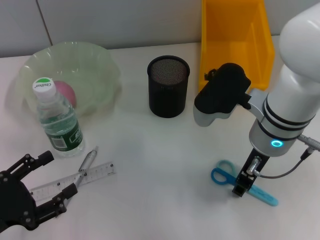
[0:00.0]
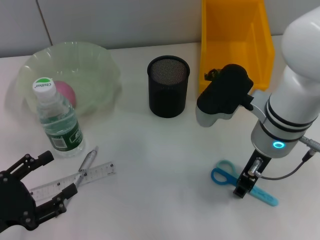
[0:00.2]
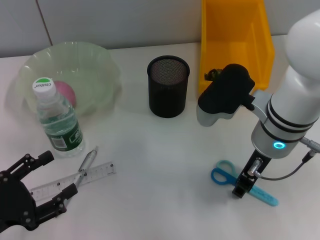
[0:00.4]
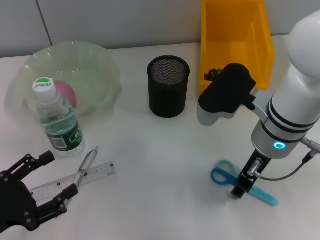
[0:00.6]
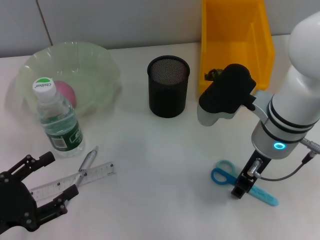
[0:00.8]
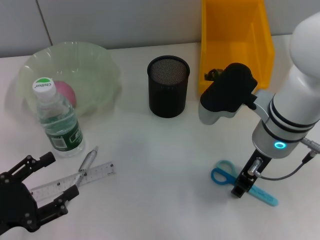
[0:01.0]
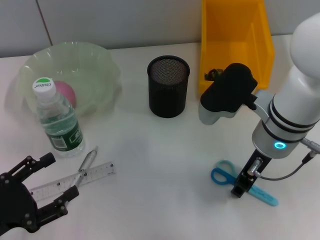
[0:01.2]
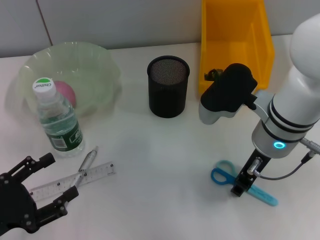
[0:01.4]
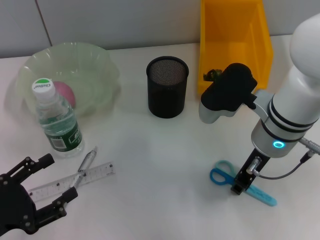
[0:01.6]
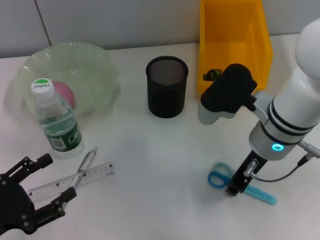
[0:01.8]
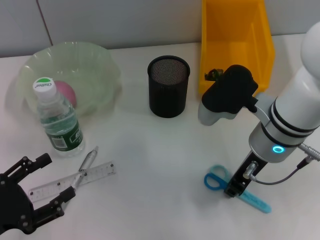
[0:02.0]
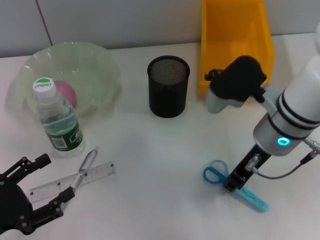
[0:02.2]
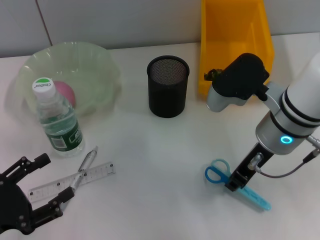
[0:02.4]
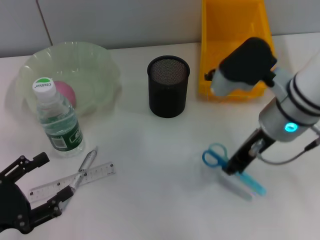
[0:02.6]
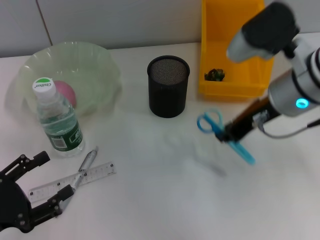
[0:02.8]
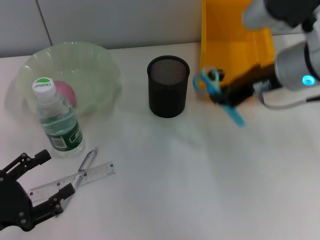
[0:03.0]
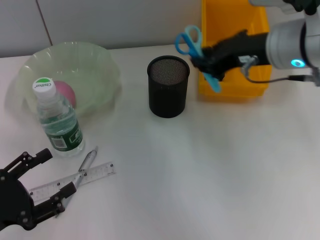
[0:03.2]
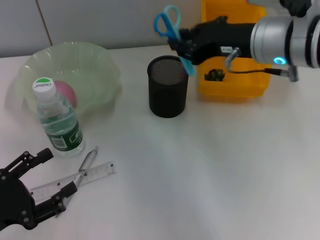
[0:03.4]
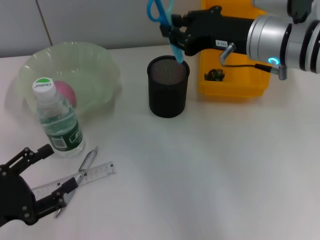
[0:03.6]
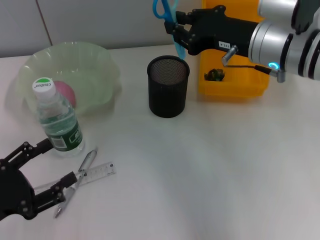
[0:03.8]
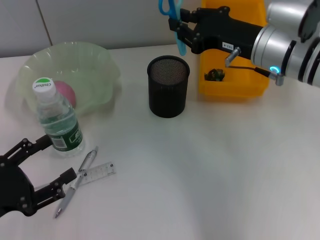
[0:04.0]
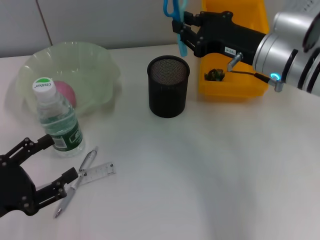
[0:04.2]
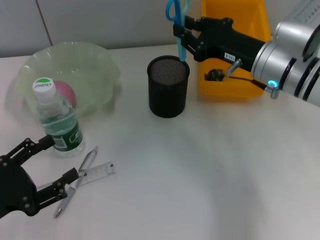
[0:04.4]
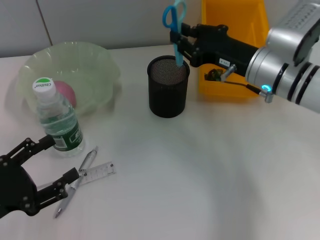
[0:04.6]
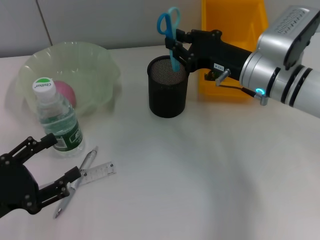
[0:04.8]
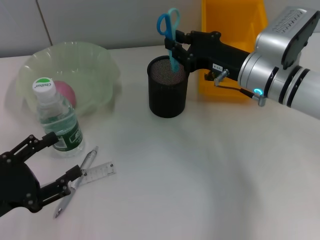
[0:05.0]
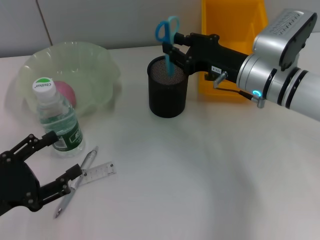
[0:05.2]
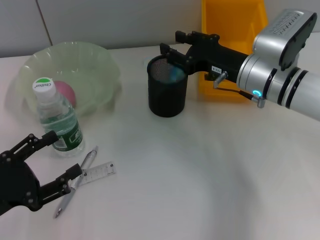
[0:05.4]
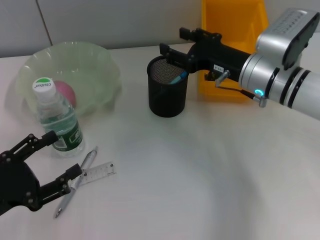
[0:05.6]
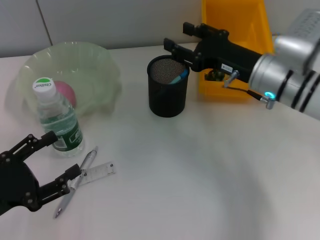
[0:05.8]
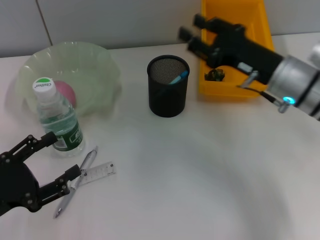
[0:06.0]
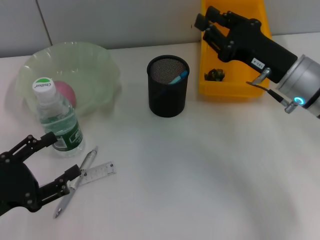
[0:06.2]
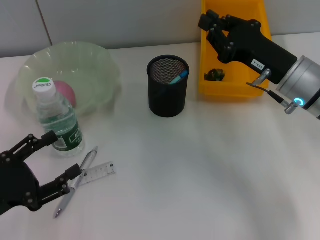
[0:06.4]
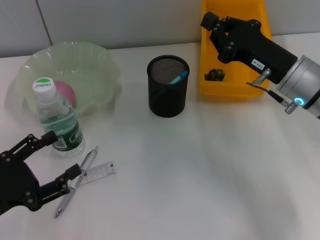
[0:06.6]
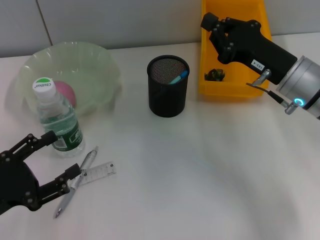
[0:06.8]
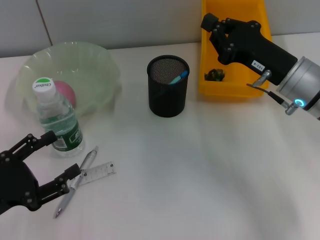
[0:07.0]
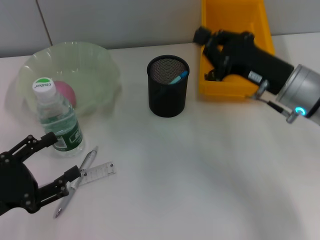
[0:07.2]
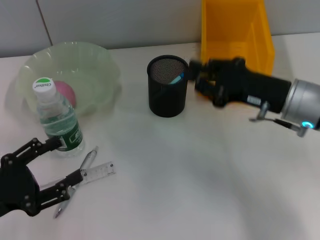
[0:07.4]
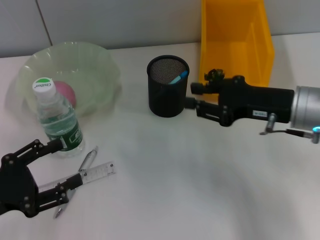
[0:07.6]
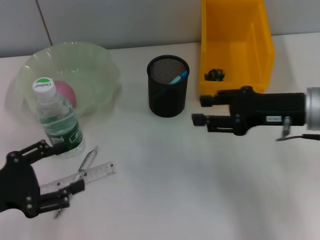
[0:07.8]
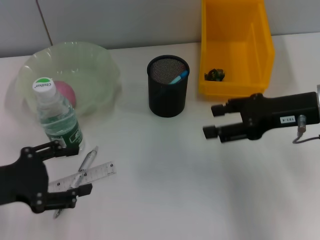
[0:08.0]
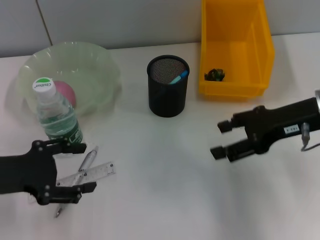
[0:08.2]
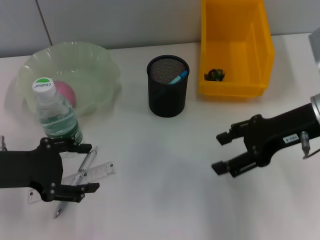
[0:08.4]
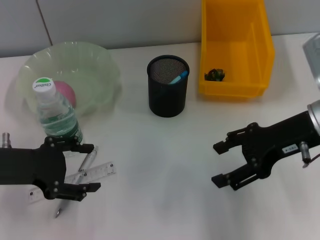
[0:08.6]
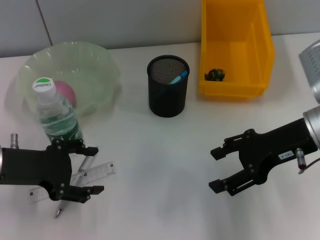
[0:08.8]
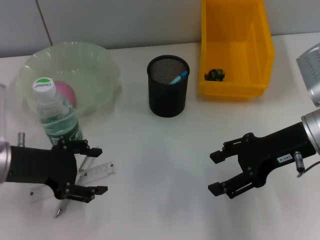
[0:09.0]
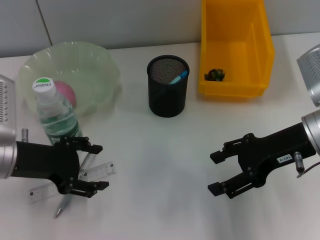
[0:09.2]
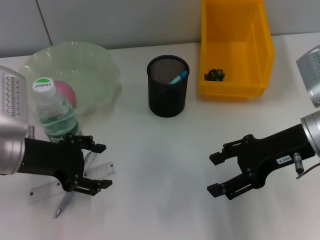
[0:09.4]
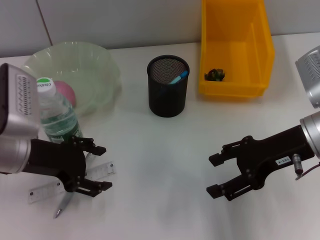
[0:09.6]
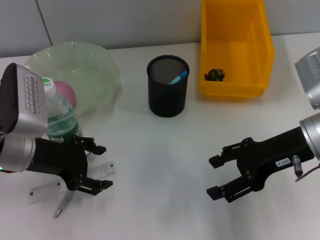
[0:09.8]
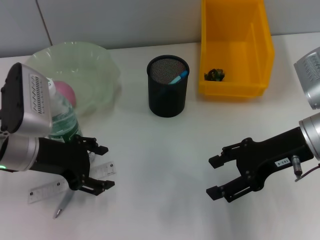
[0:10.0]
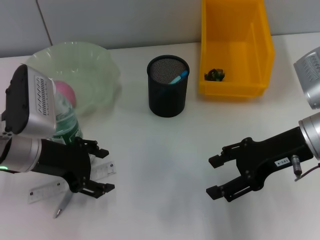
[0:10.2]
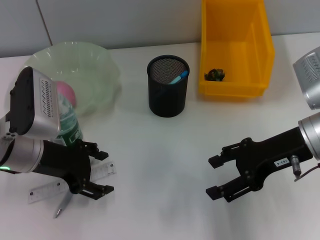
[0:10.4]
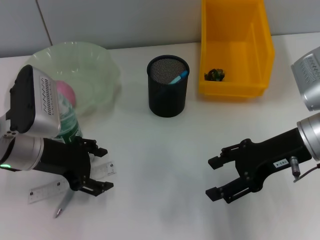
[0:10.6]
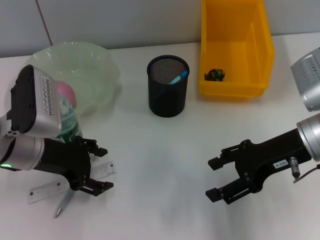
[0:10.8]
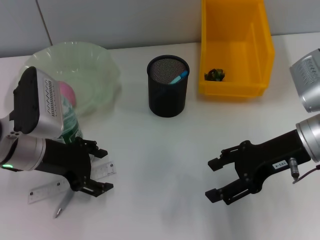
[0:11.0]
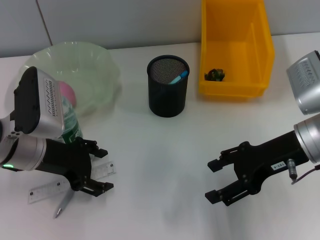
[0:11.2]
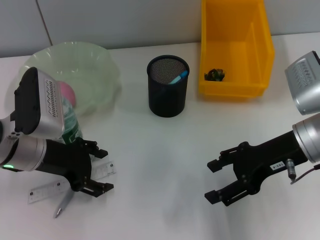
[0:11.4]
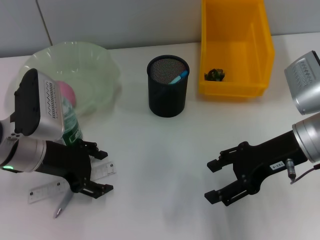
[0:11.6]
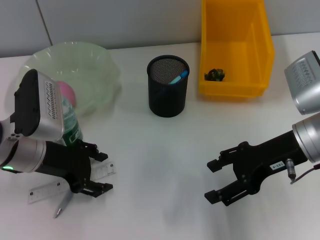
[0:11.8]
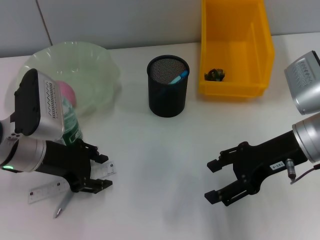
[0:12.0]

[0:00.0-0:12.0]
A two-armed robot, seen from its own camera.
Step, 0:02.0 to 0:05.6: Place the blue utility knife into the pen holder with the right hand.
0:00.0 to 0:01.6: Neither gripper changes place.
0:01.6 to 0:03.0: The right gripper is displaced upward by approximately 10 cm.
0:03.0 to 0:04.4: The right gripper is displaced downward by roughly 10 cm.
0:04.4 to 0:06.0: The right gripper opens up.
0:06.0 to 0:07.6: The right gripper closes up.
0:07.6 to 0:09.0: The right gripper opens, while the left gripper is displaced forward and to the right by about 10 cm.
0:09.0 to 0:10.4: The grippers move only a little.
0:10.4 to 0:12.0: Both grippers stay about where they are.

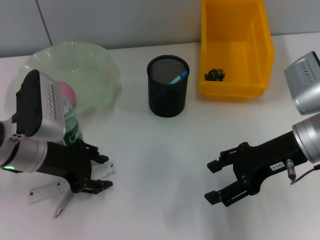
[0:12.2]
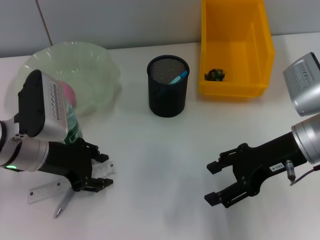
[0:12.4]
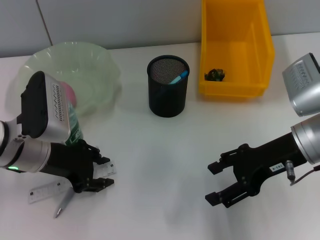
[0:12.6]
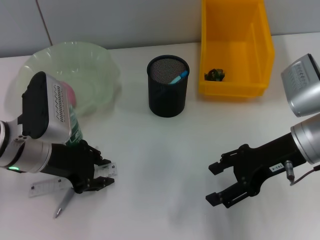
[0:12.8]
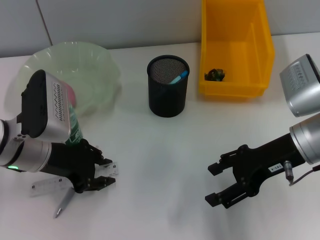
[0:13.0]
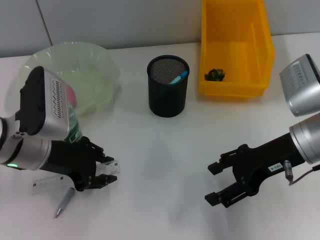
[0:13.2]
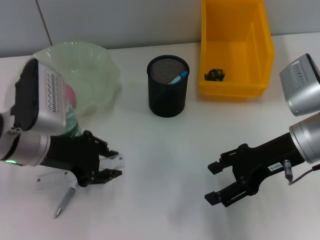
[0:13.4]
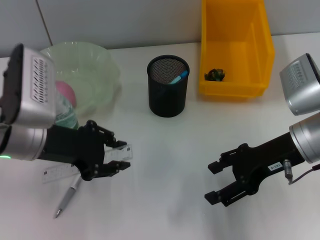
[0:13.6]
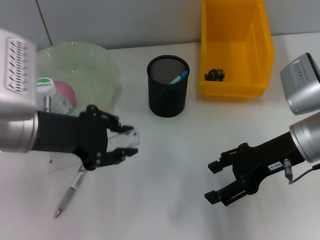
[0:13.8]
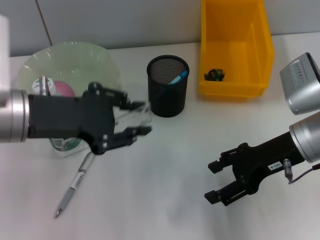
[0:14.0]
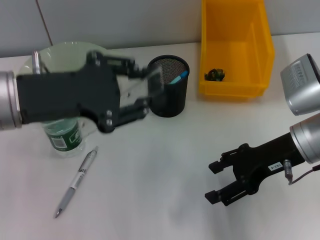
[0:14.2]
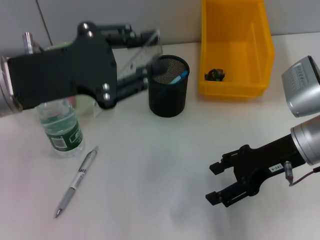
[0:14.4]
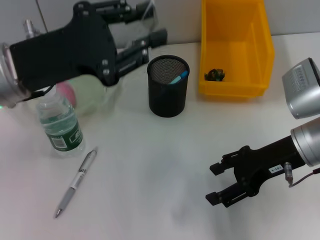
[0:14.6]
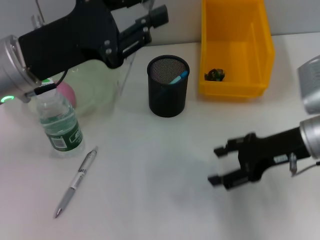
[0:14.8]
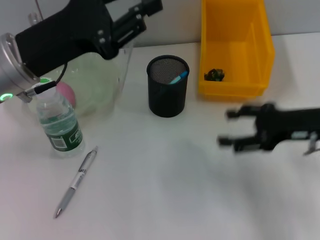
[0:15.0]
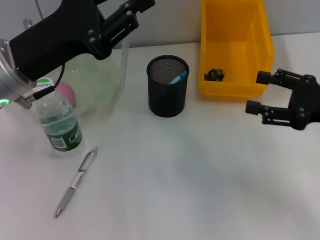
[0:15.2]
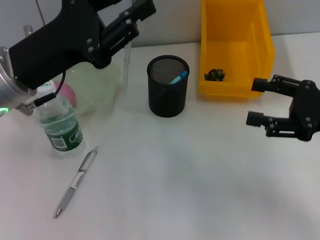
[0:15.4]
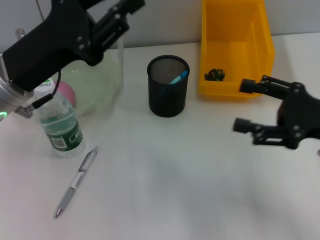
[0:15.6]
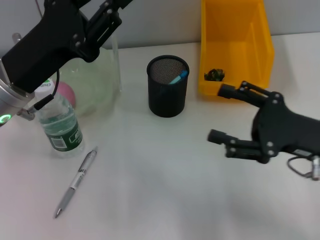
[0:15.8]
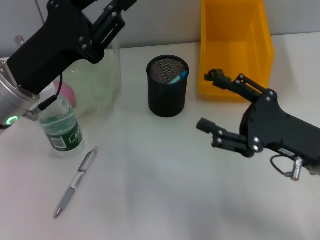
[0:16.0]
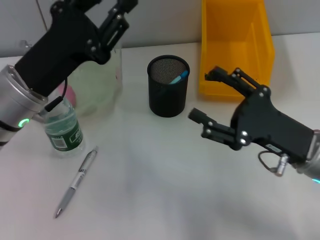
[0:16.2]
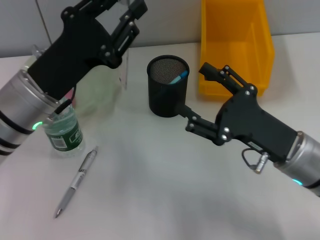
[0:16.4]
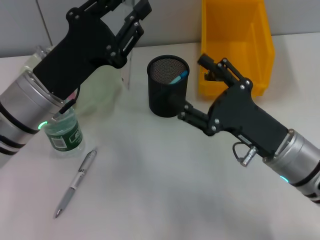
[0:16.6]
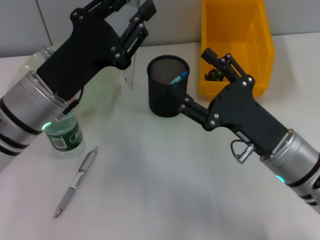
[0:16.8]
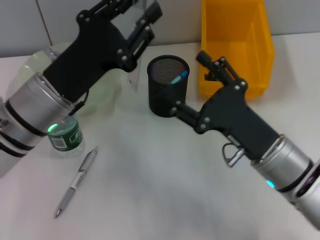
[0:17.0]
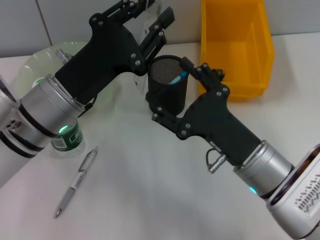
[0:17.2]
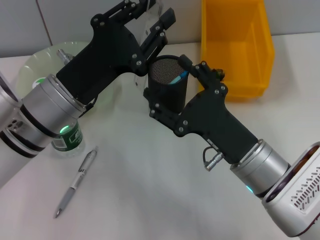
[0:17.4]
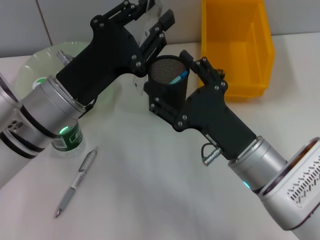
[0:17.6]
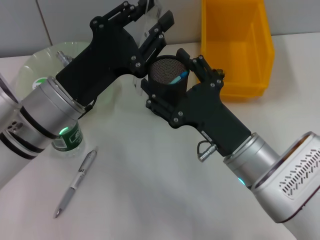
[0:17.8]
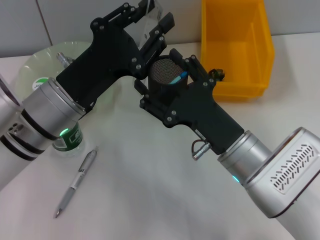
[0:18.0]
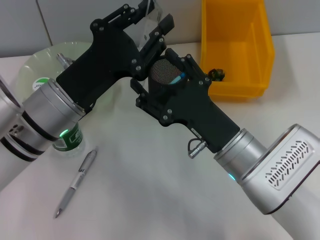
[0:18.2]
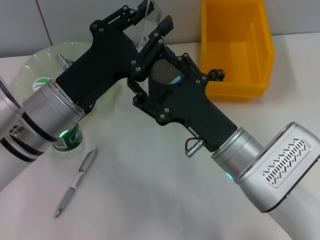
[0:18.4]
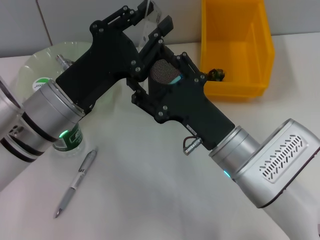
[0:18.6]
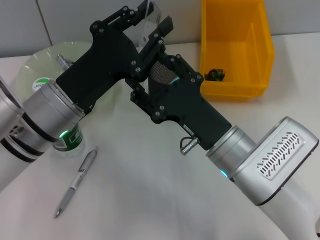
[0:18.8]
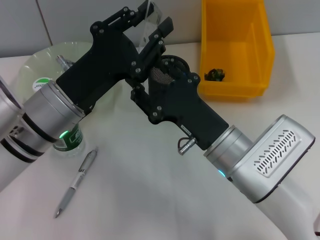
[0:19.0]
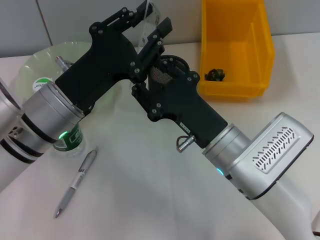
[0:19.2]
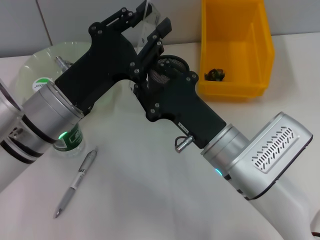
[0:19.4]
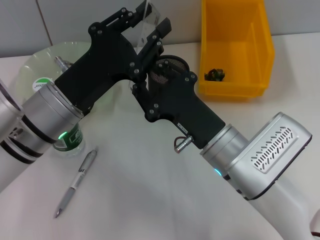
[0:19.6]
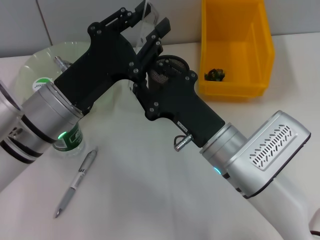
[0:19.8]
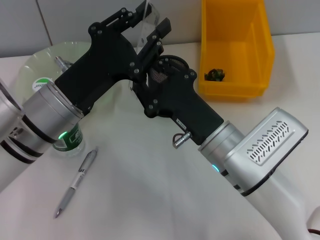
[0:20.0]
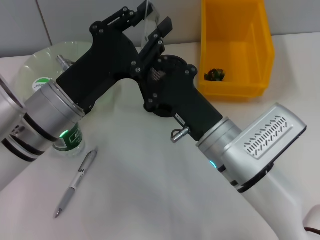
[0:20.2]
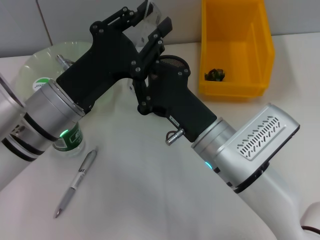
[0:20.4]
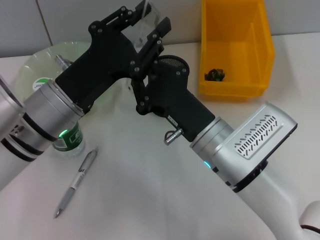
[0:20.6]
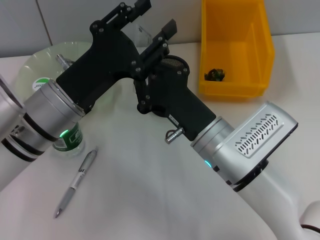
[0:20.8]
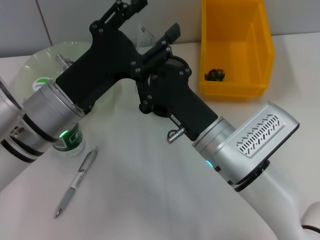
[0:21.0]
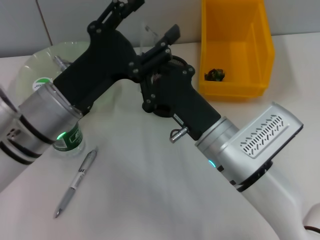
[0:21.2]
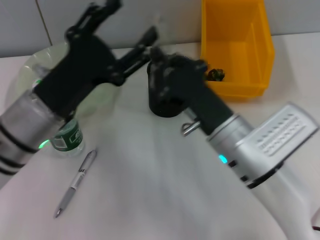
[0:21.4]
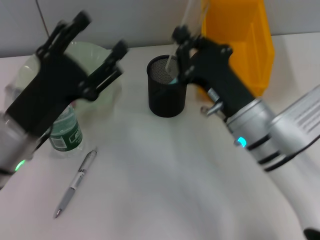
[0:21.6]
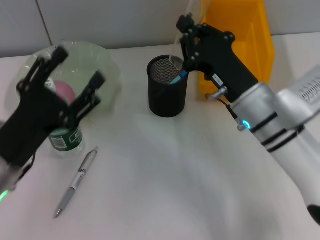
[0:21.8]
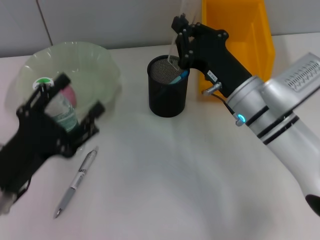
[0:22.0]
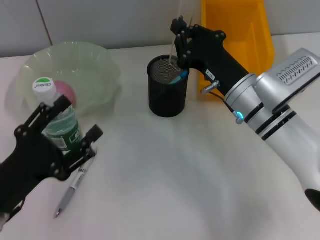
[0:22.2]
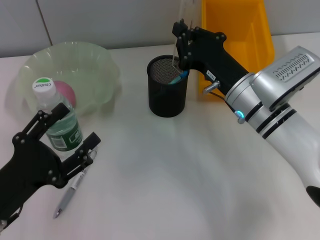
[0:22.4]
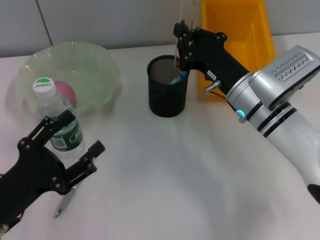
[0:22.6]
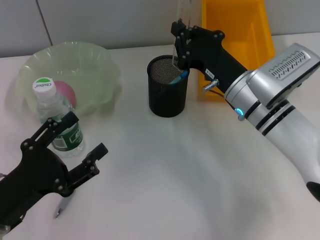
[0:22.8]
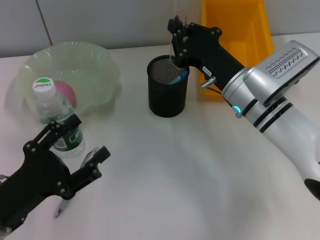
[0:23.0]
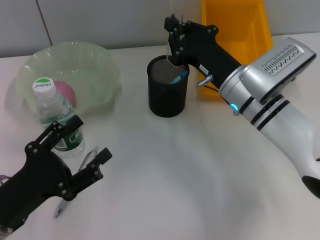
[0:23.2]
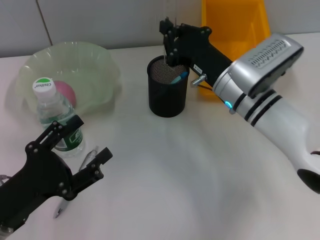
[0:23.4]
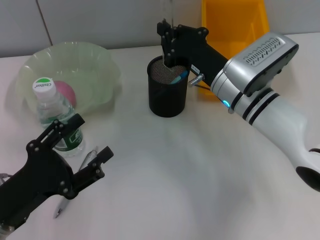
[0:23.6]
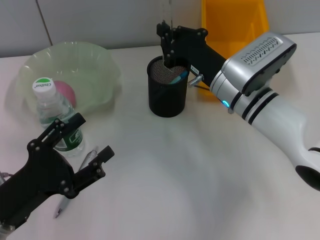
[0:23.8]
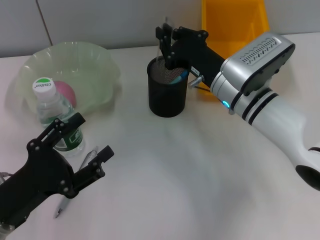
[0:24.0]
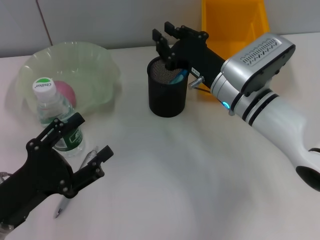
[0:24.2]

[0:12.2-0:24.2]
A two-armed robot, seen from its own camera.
Step, 0:13.2 to 0:21.0: Pass the ruler from the left hand to the right hand.
0:12.2 to 0:13.8: The left gripper travels upward by about 5 cm, and closes its fingers.
0:13.8 to 0:15.2: The right gripper travels to the right by roughly 10 cm.
0:15.2 to 0:16.6: The left gripper ends up approximately 5 cm from where it was. The right gripper heads to the left and downward, covering roughly 15 cm.
0:16.6 to 0:18.2: The right gripper moves to the left, roughly 5 cm.
0:18.2 to 0:19.8: The right gripper closes up.
0:19.8 to 0:21.2: The right gripper closes its fingers, while the left gripper opens.
0:21.2 to 0:22.6: The left gripper travels backward, to the left and downward by approximately 15 cm, while the right gripper moves forward and to the right, roughly 10 cm.
0:22.6 to 0:24.2: There are only small adjustments of the grippers.
